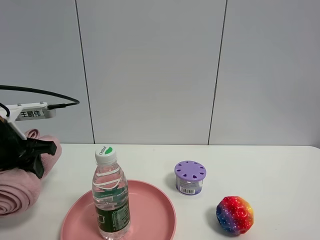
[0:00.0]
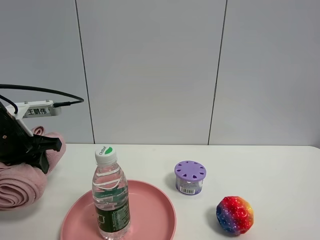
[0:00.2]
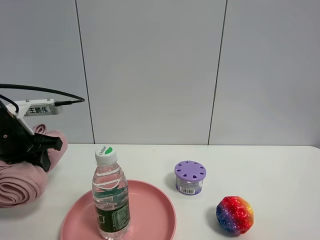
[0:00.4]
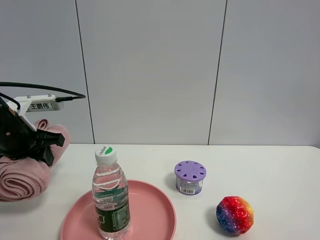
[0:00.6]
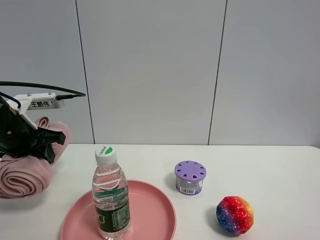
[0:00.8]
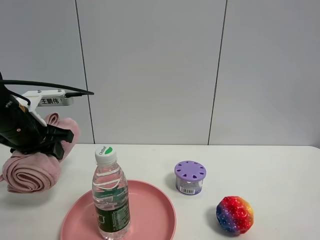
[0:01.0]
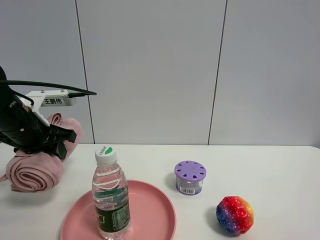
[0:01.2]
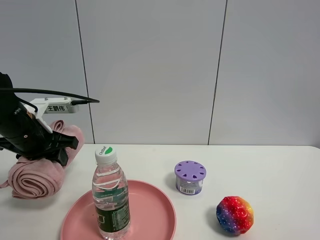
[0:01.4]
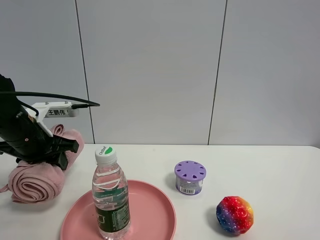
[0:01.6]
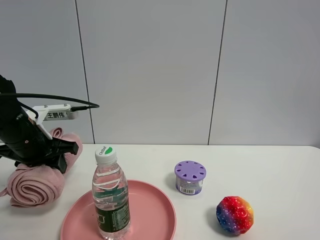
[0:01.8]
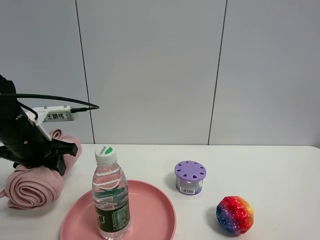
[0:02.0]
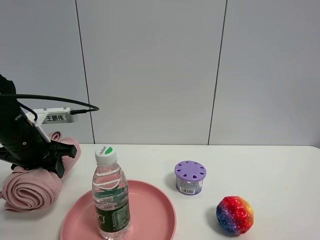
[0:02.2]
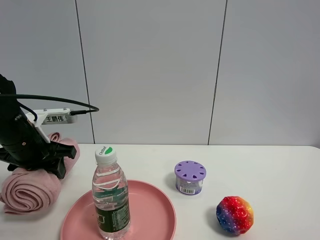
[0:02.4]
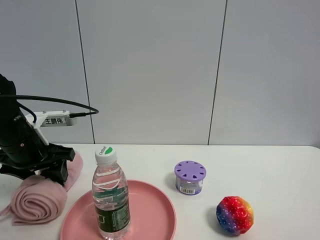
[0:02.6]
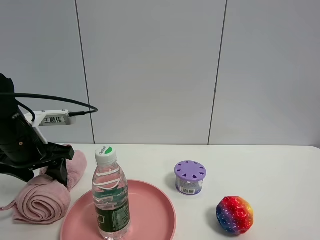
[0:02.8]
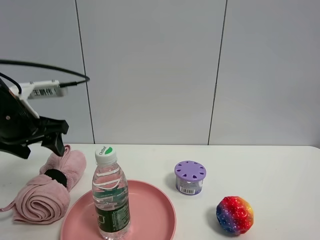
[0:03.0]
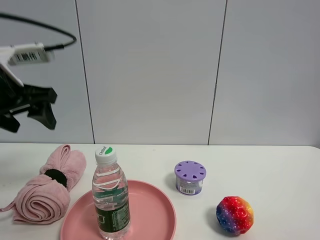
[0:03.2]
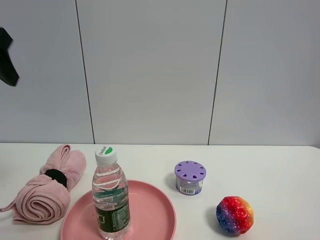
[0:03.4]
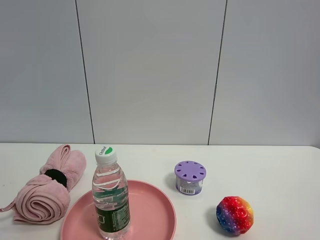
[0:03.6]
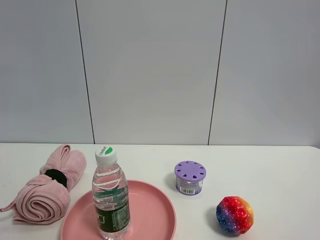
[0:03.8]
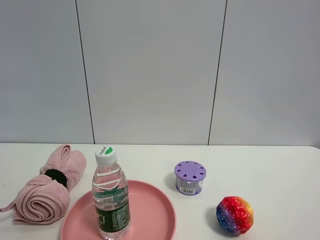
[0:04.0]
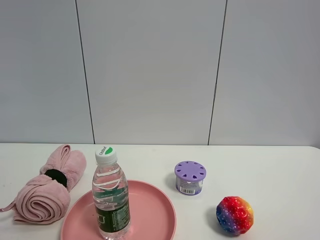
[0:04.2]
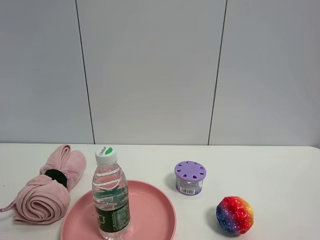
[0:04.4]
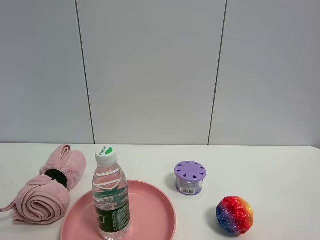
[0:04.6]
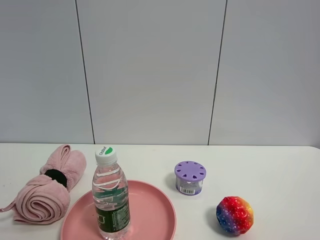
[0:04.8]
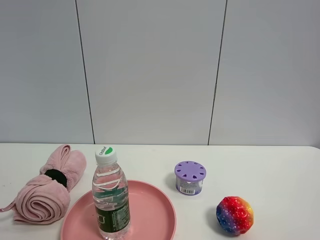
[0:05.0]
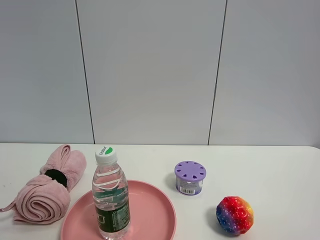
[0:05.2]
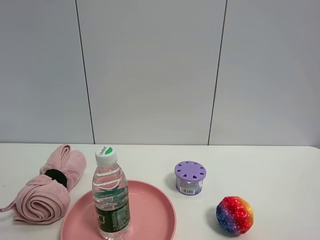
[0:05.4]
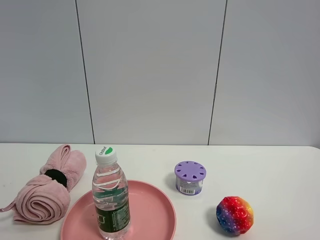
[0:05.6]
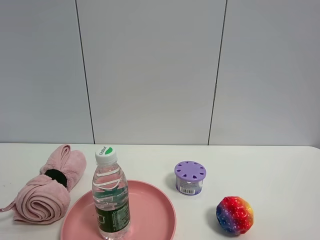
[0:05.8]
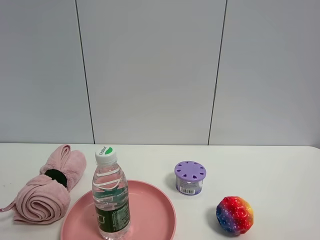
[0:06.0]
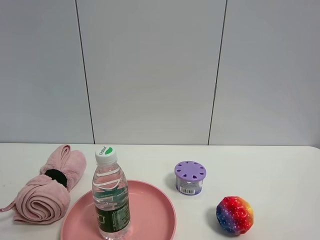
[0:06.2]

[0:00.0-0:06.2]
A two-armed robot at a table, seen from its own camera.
Task of the whole recording: the gripper move the object.
Step, 0:00.0 to 0:03.0: Place the pink towel on the table with the left gripper.
0:00.0 to 0:01.6: There are only small adjustments of the grippers.
0:01.6 to 0:03.2: The left gripper is displaced upward by approximately 15 cm, and opens its fingers.
0:03.2 to 0:04.6: The left gripper goes about 30 cm backward.

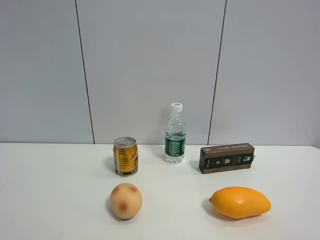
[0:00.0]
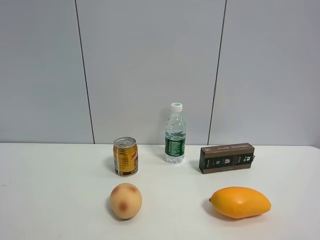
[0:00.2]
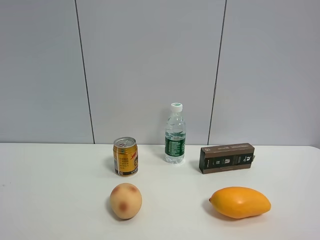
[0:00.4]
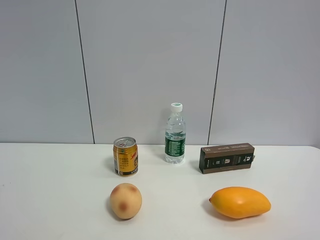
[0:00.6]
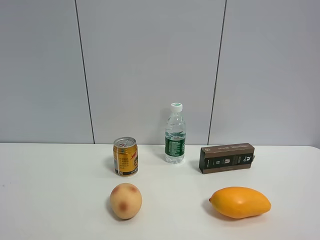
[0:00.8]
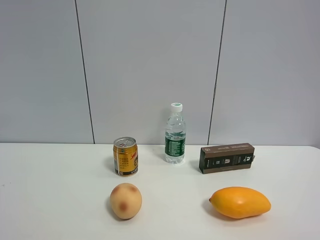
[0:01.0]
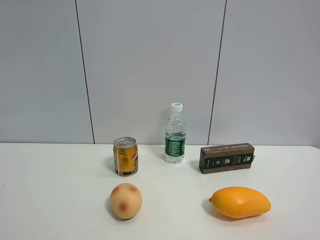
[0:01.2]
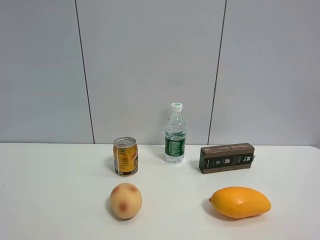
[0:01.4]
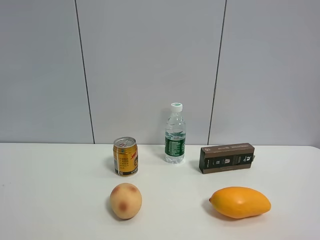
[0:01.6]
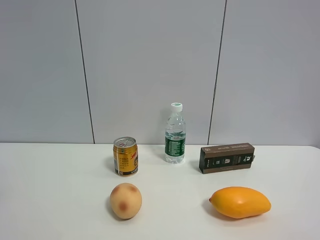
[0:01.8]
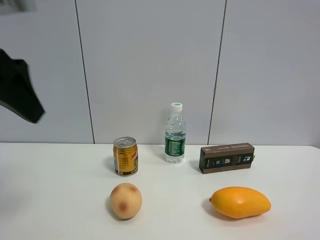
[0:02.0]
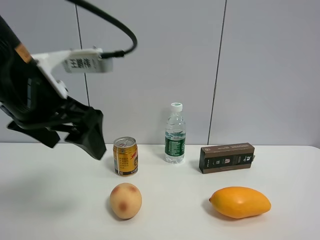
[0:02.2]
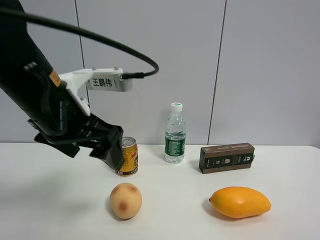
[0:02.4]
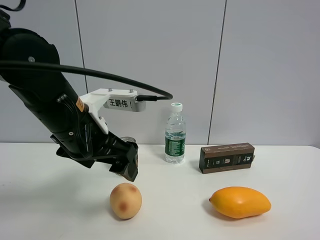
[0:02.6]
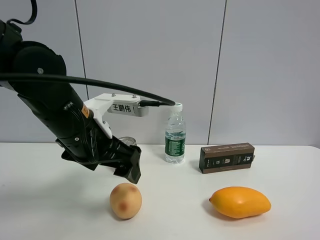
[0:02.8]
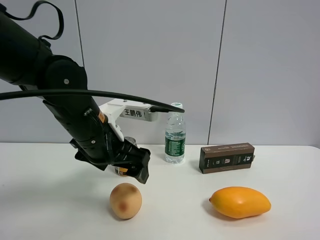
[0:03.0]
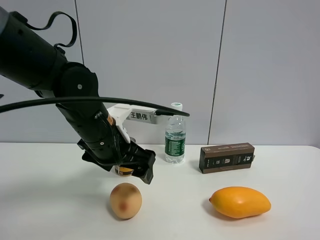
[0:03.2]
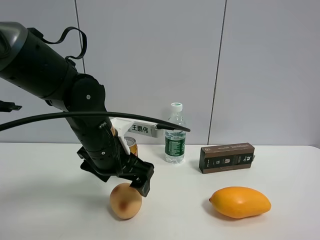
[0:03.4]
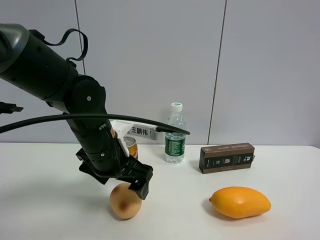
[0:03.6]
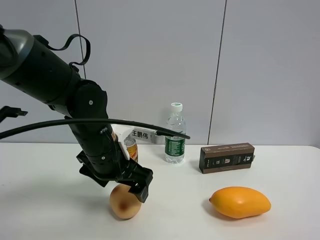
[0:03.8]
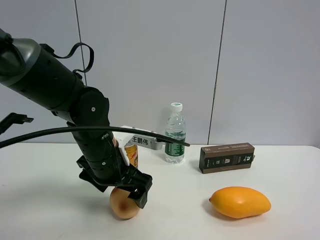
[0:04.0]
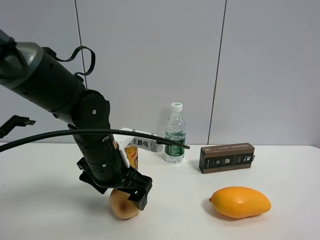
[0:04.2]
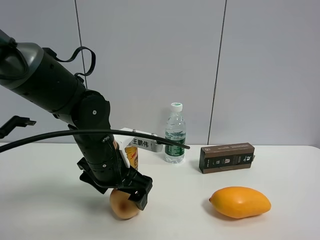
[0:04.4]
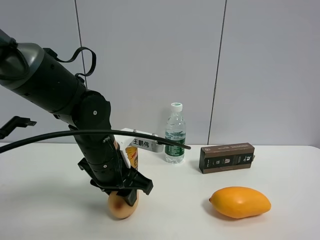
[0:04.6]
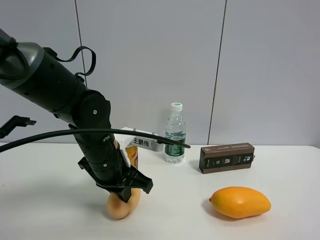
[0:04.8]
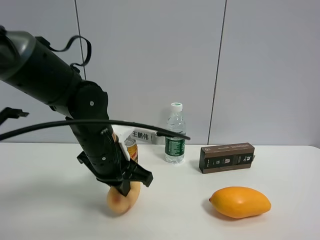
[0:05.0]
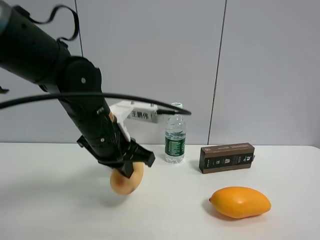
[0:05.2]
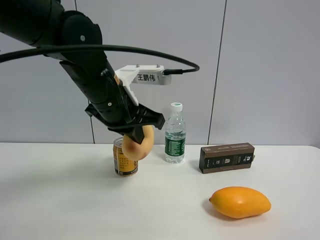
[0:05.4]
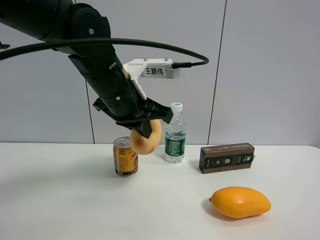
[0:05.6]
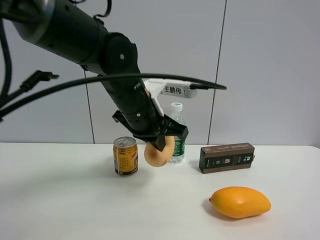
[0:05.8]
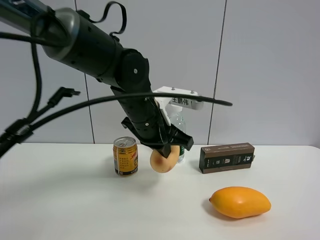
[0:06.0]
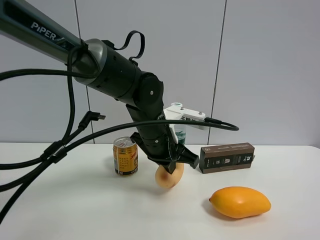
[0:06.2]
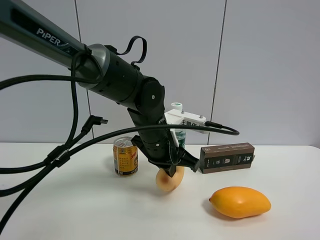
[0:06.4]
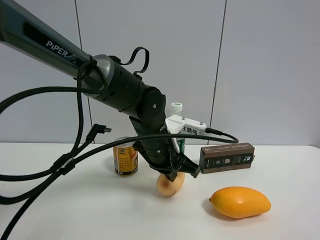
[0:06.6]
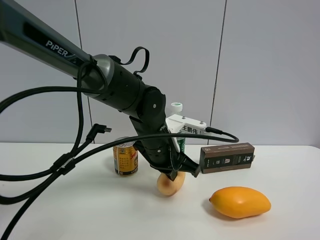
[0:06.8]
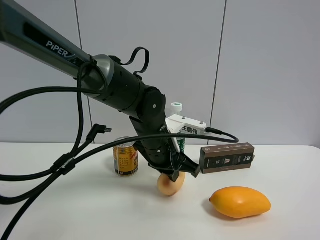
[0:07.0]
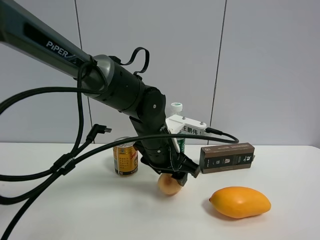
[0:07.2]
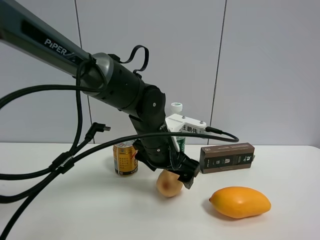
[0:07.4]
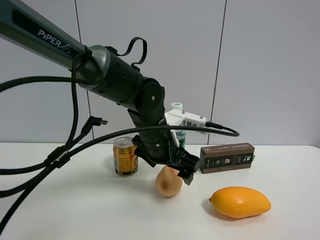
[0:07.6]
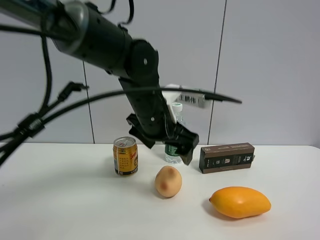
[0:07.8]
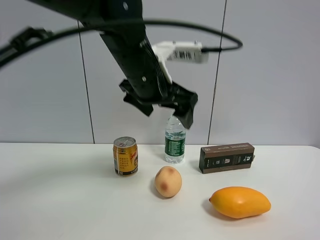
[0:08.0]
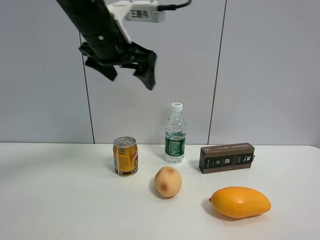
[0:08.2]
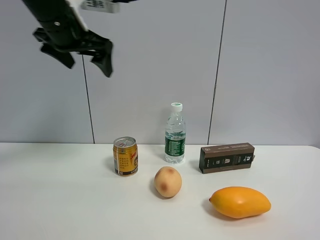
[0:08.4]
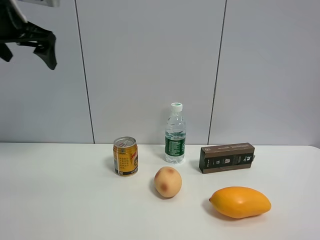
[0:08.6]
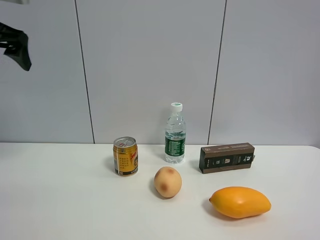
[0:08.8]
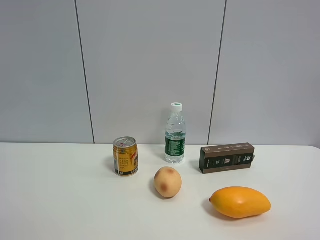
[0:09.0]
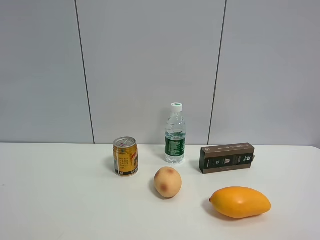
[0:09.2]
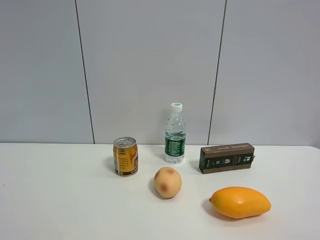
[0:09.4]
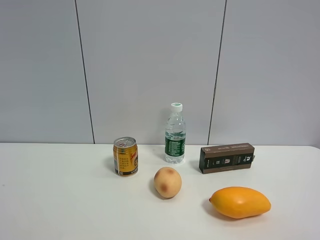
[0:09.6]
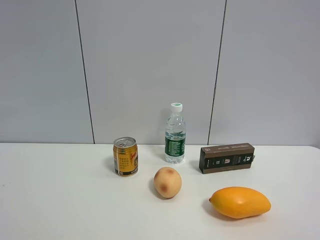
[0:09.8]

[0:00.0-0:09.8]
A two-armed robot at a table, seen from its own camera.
Task of the whole recording: the gripper move the object.
Step, 0:00.0 to 0:04.8: Grasp the egg yolk pastry with the left gripper.
Step, 0:05.0 to 0:07.8: Place the egg yolk pastry on the table with the left gripper.
0:01.4 to 0:02.8: The left gripper shifts some 35 cm to the right, downward and forward.
0:02.8 to 0:04.2: The left gripper is displaced downward by about 5 cm.
0:04.2 to 0:05.6: The left gripper is displaced upward by about 10 cm, and closes its fingers.
0:05.6 to 0:07.0: The left gripper travels downward and to the right by some 10 cm.
0:07.0 to 0:08.4: The left gripper heads upward and to the left, covering about 30 cm, and opens up.
0:08.4 to 0:09.8: The left gripper moves backward, approximately 35 cm.

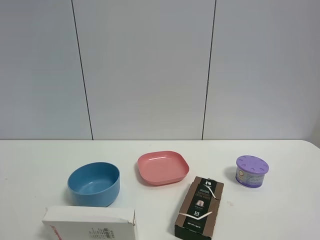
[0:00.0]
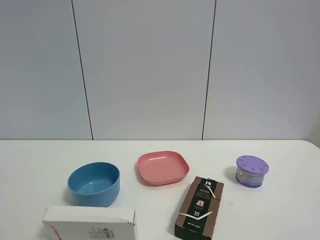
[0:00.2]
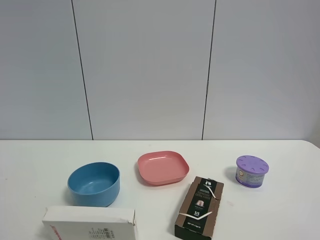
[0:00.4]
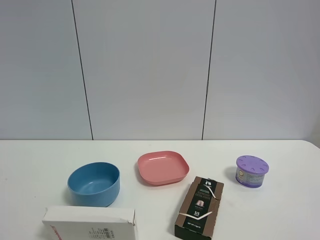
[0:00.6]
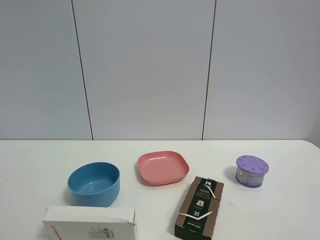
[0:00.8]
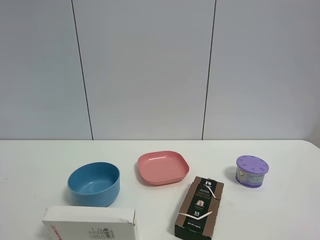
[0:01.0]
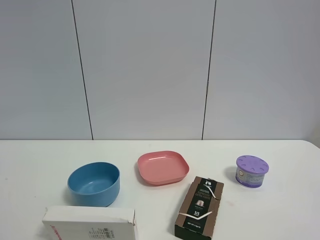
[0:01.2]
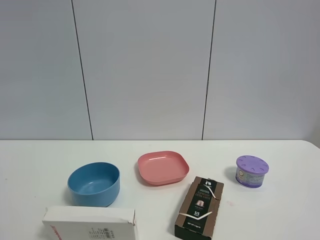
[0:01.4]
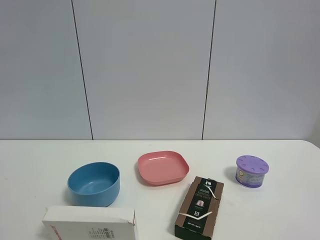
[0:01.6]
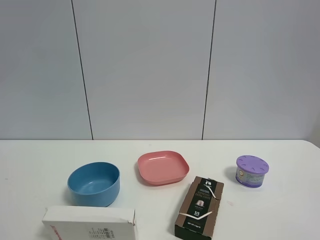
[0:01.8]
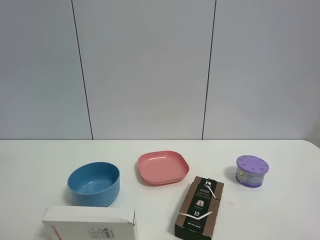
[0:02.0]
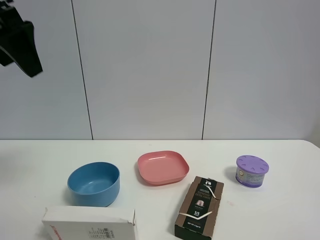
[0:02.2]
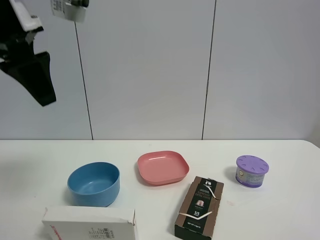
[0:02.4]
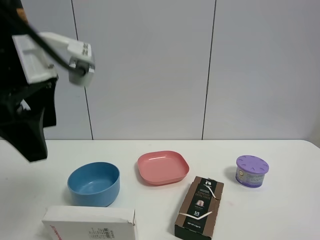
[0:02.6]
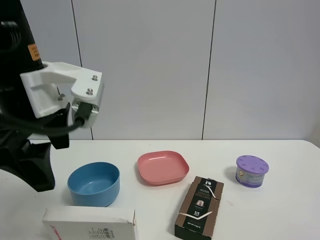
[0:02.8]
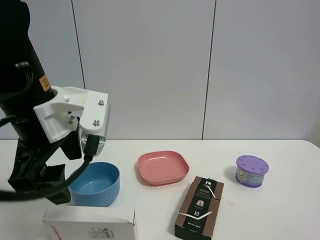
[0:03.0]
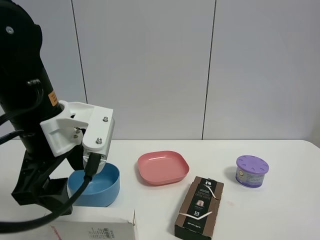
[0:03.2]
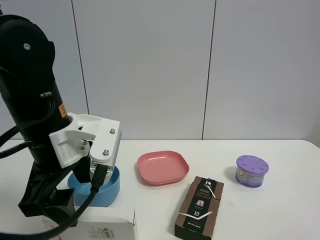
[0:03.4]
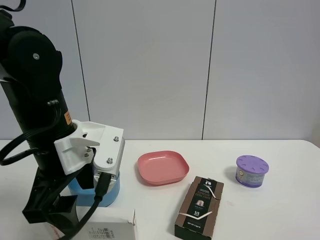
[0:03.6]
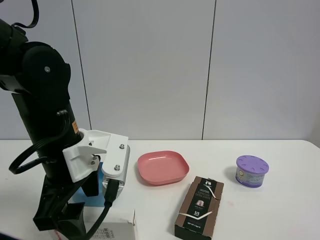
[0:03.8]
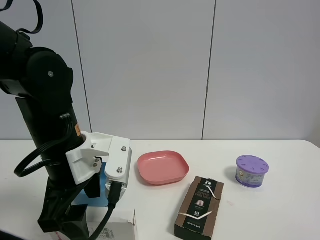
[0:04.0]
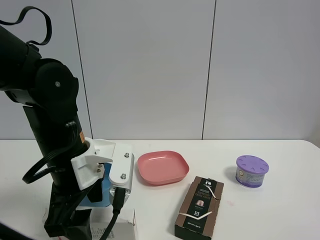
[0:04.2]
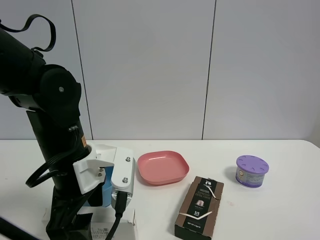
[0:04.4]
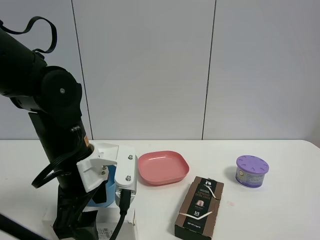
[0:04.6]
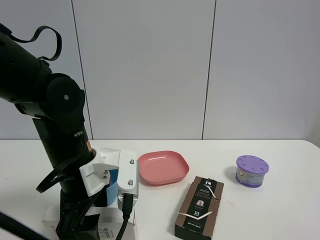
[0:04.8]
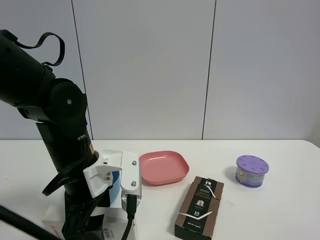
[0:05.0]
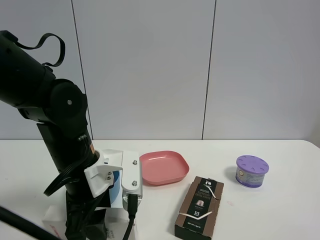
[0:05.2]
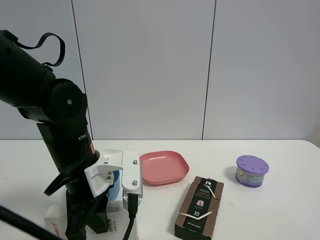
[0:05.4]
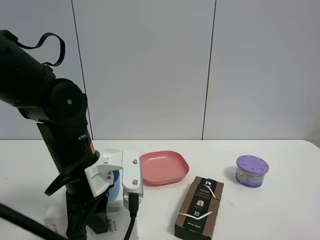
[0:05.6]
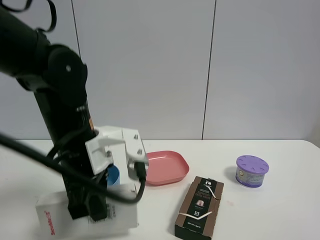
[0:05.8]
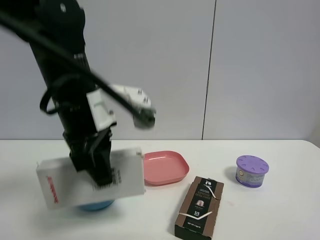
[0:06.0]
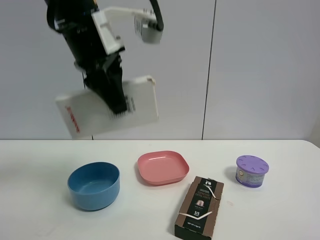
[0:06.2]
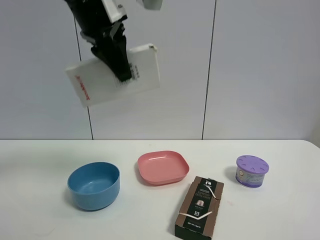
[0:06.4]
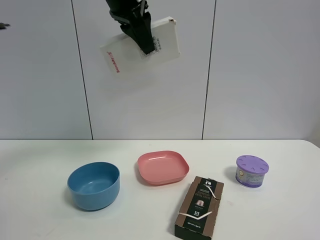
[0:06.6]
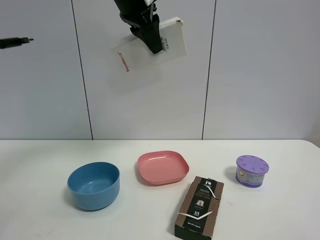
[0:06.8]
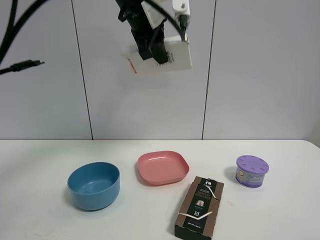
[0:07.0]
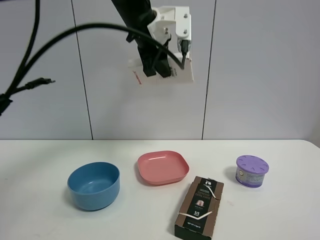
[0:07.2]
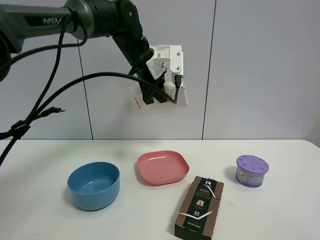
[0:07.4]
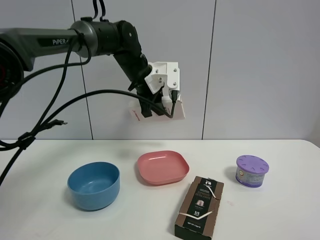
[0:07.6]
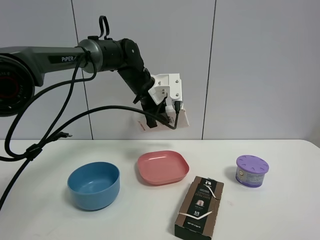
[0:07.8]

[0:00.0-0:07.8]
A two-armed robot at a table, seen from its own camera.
Task of the whole recording: the gripper move the object.
Step, 0:00.0 to 0:05.4: Grasp the USB box with the left gripper.
0:01.6 to 0:03.2: The left gripper is displaced downward, to the right and forward by about 30 cm.
0:03.2 to 0:04.6: The left gripper travels downward by roughly 5 cm.
0:04.6 to 0:06.2: The left gripper shifts approximately 20 cm upward, and closes its fingers.
0:06.2 to 0:07.8: The left gripper goes about 25 cm forward and downward.
